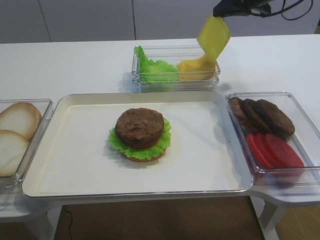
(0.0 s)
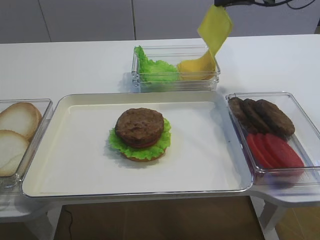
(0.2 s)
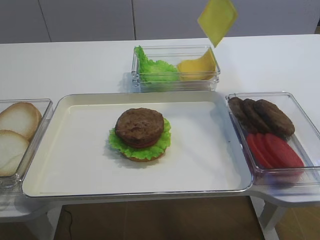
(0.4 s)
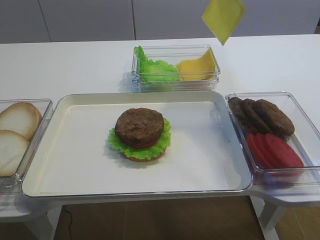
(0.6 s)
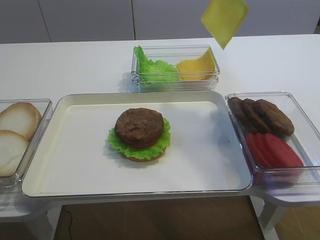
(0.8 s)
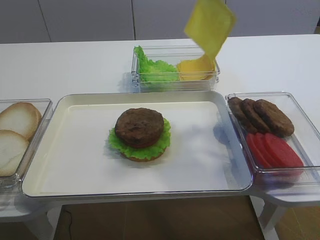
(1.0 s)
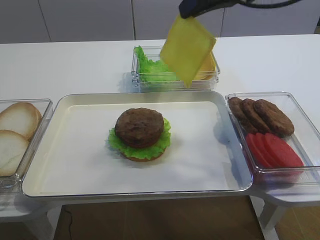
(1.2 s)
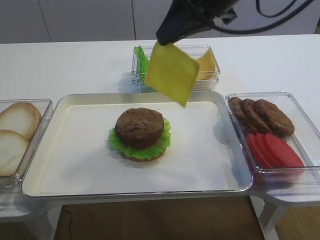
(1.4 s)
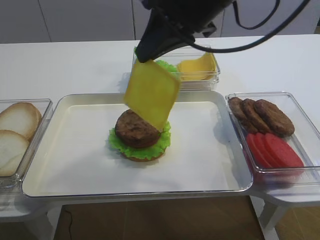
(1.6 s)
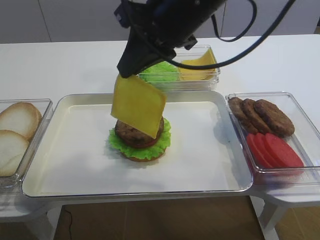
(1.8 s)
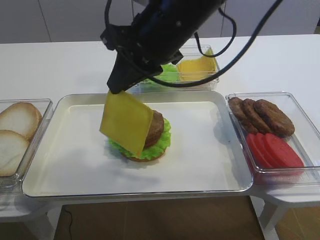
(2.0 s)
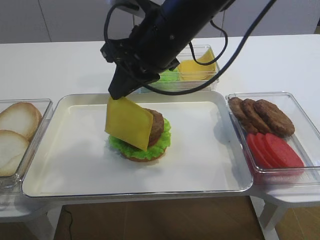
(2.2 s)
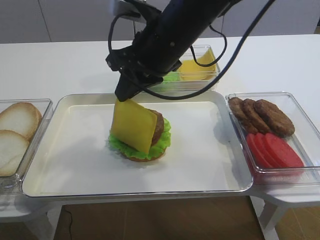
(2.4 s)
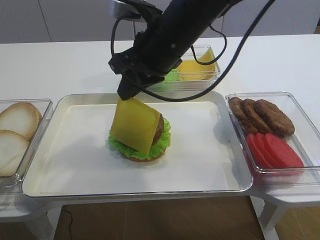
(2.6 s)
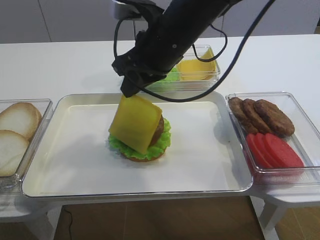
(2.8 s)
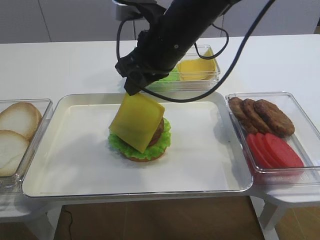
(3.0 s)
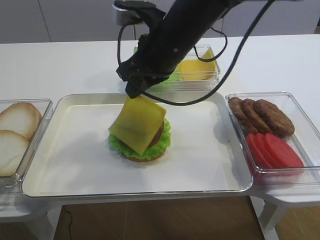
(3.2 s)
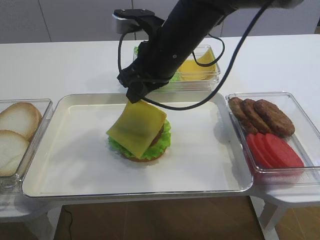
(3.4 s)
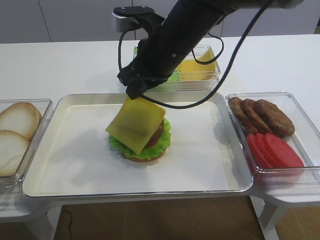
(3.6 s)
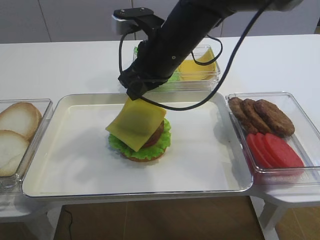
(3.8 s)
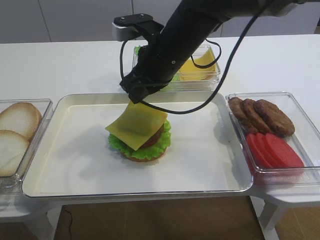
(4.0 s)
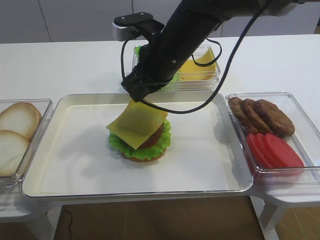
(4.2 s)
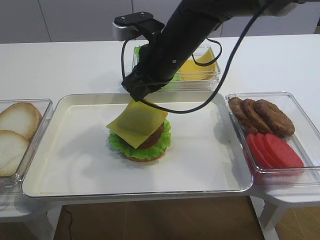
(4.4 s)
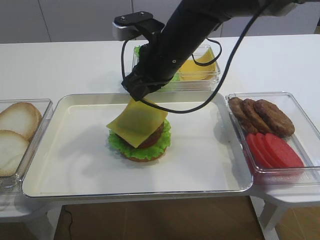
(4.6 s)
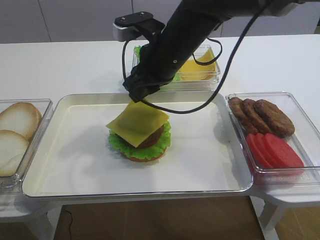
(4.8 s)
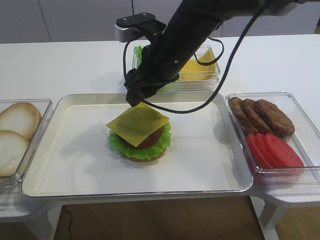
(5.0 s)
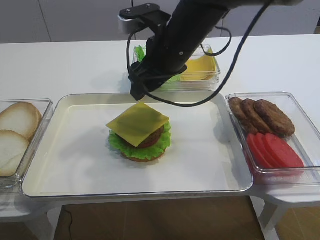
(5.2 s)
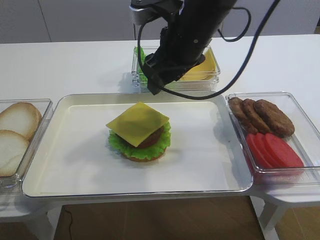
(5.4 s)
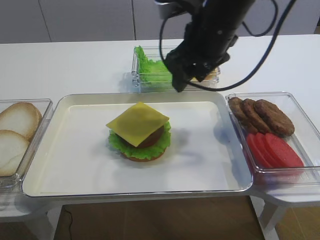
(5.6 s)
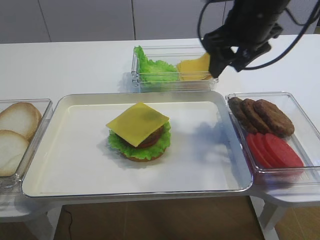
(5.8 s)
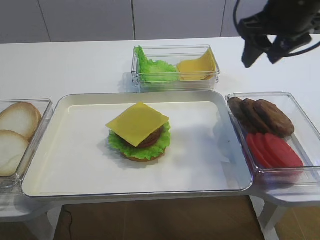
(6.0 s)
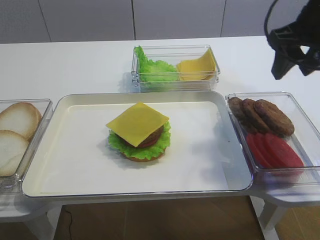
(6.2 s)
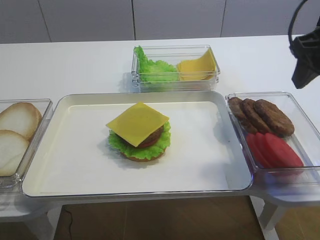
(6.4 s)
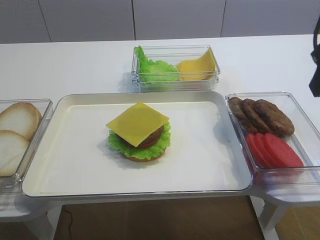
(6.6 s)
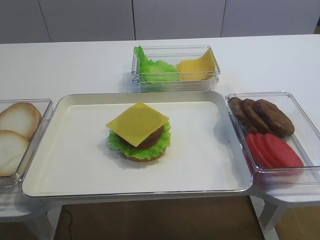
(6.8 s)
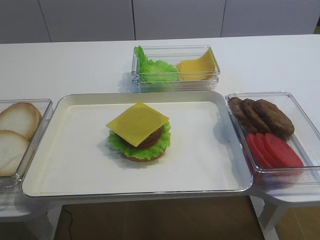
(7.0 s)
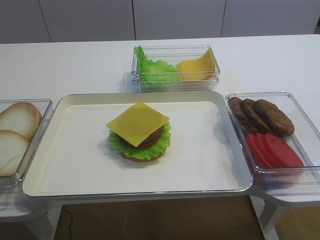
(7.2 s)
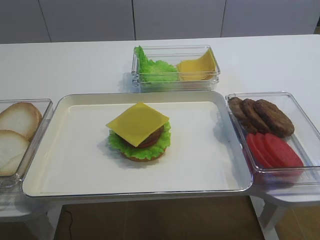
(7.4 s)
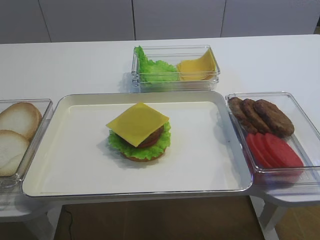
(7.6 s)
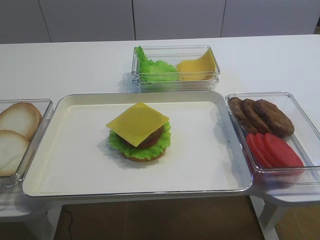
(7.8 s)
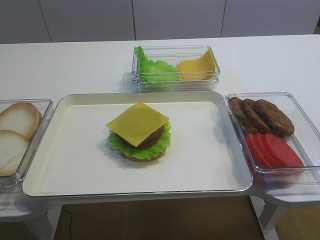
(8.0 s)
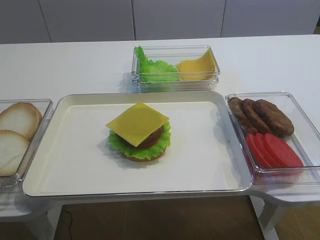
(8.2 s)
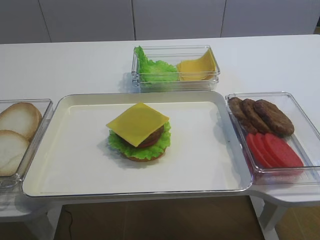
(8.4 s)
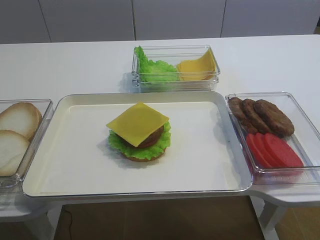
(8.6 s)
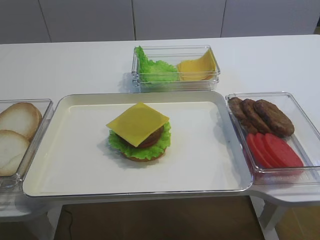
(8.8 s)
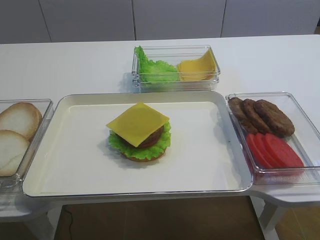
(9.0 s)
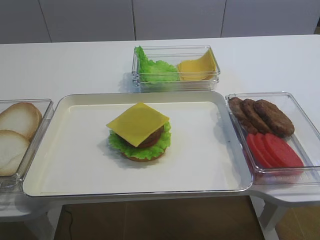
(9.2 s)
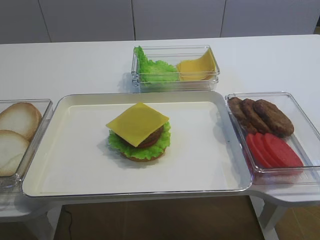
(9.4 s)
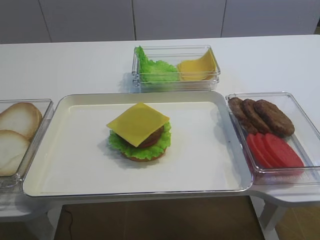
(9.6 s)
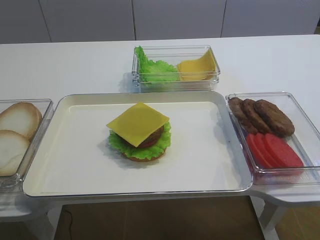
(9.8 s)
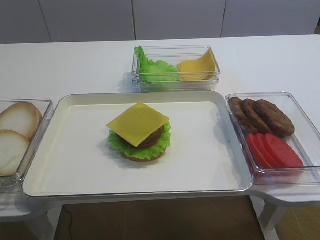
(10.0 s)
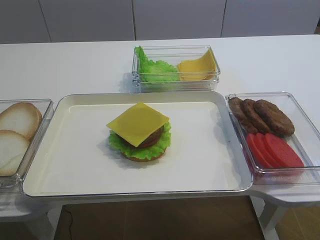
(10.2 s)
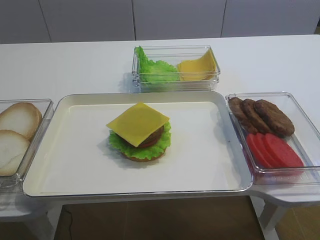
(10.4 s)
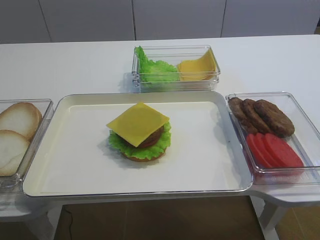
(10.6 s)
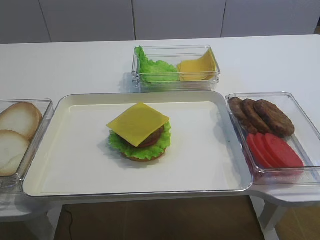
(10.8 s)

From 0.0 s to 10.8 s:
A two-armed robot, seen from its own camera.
Step, from 0.4 s to 5.2 s: Place the cheese slice on the cutlet with the right gripper.
From 0.0 s to 1.6 s: The right gripper heads backward and to the left, covering roughly 25 cm.
From 1.6 s to 3.0 s: The right gripper is displaced downward by approximately 5 cm.
From 3.0 s to 4.6 s: The grippers stay close to where they were, moving slightly.
From 4.6 s to 6.2 s: The right gripper moves to the right, about 20 cm, and opens up.
From 6.2 s to 7.8 s: The right gripper is displaced backward by some 30 cm.
From 7.8 s to 9.2 s: The right gripper is displaced downward by some 5 cm.

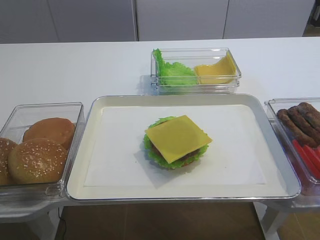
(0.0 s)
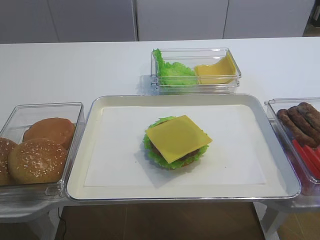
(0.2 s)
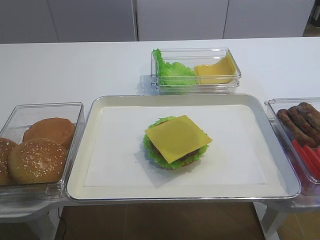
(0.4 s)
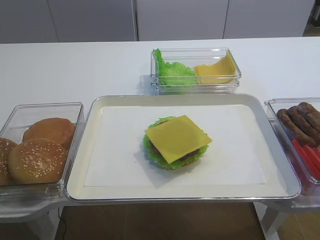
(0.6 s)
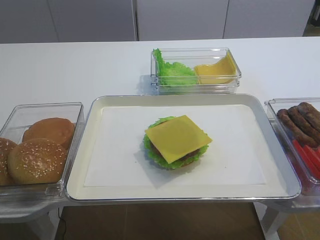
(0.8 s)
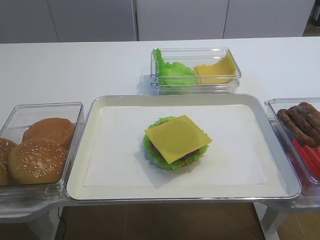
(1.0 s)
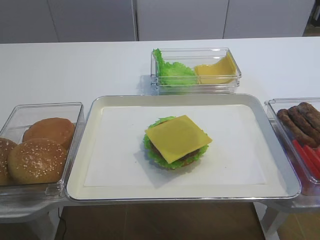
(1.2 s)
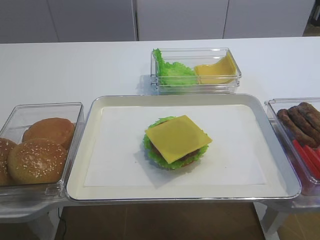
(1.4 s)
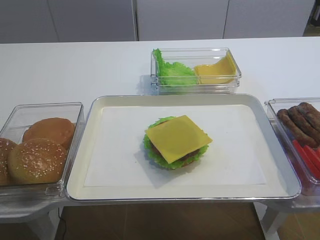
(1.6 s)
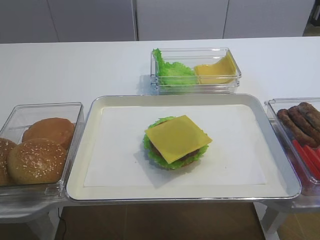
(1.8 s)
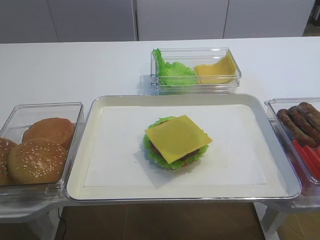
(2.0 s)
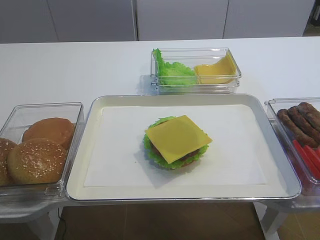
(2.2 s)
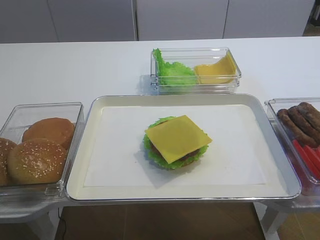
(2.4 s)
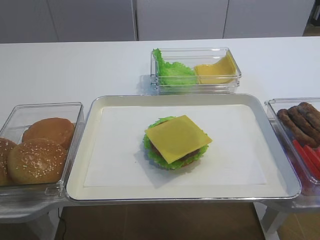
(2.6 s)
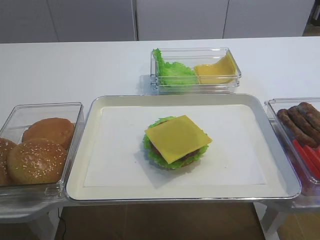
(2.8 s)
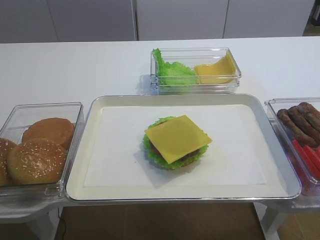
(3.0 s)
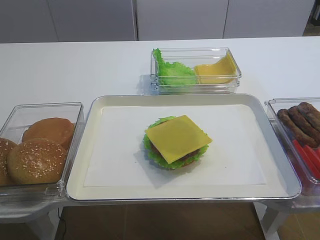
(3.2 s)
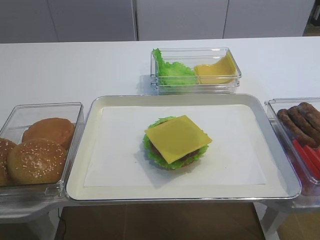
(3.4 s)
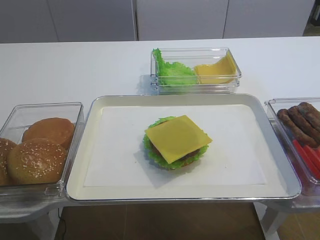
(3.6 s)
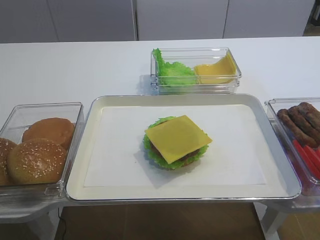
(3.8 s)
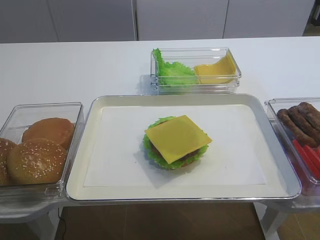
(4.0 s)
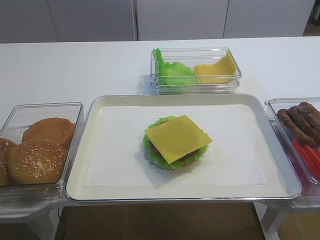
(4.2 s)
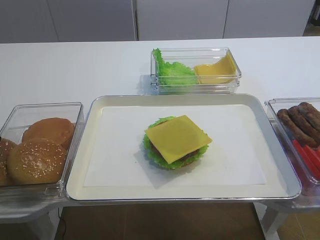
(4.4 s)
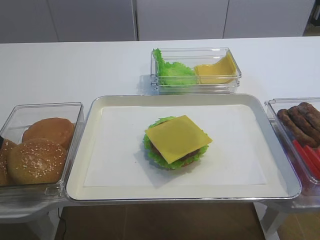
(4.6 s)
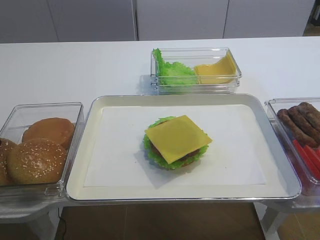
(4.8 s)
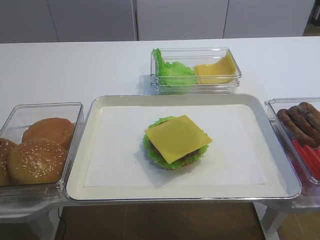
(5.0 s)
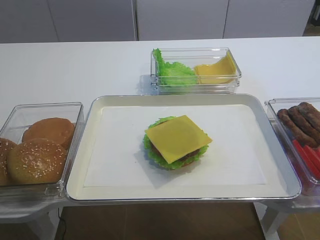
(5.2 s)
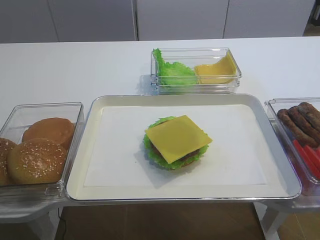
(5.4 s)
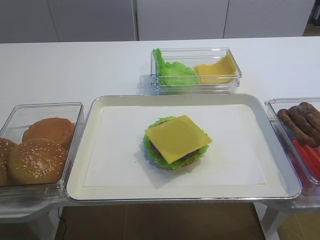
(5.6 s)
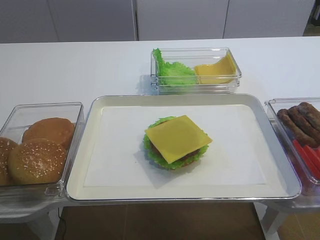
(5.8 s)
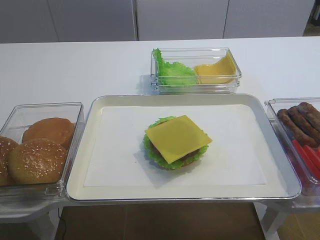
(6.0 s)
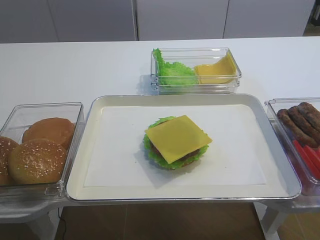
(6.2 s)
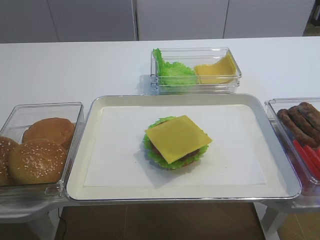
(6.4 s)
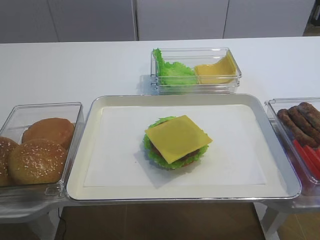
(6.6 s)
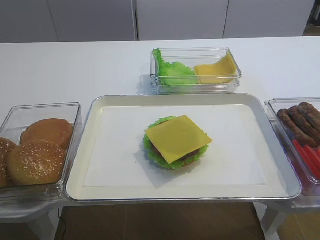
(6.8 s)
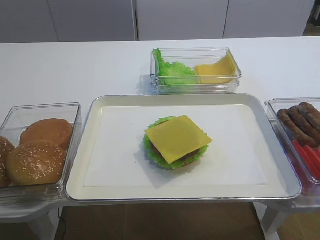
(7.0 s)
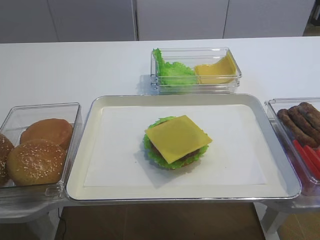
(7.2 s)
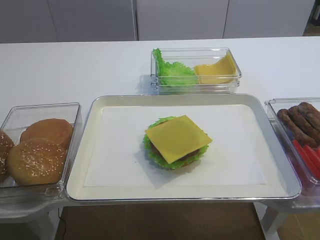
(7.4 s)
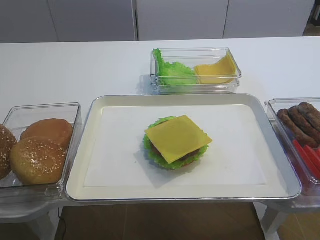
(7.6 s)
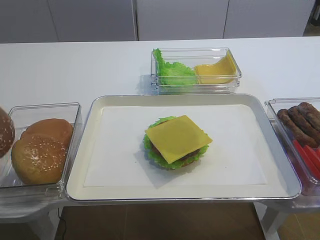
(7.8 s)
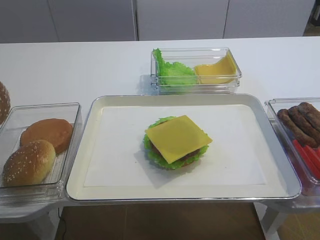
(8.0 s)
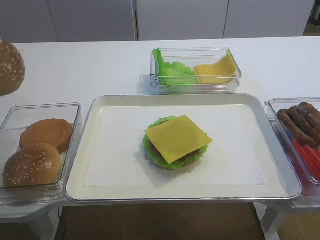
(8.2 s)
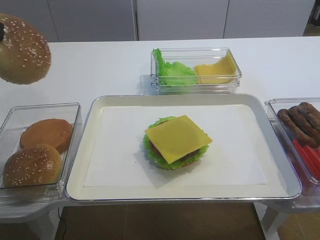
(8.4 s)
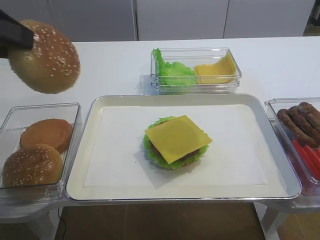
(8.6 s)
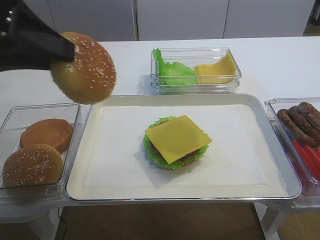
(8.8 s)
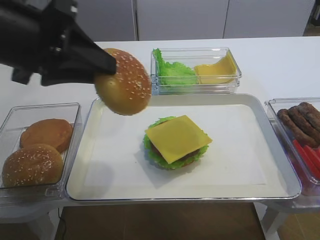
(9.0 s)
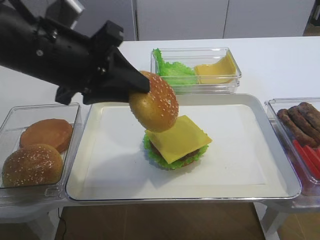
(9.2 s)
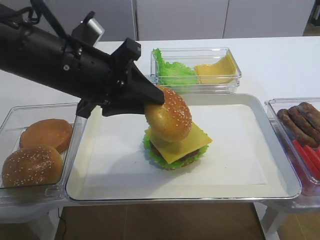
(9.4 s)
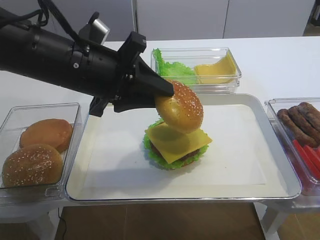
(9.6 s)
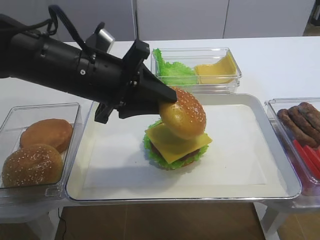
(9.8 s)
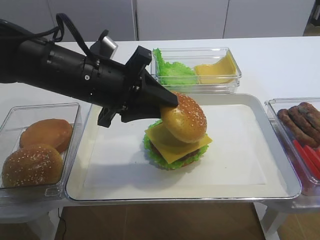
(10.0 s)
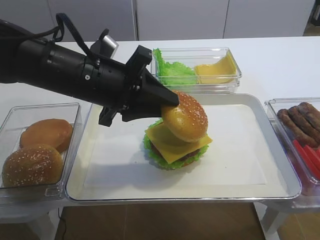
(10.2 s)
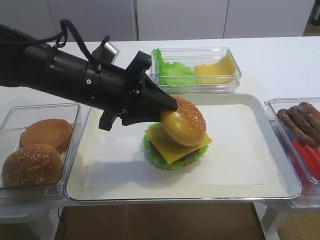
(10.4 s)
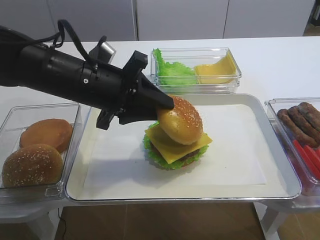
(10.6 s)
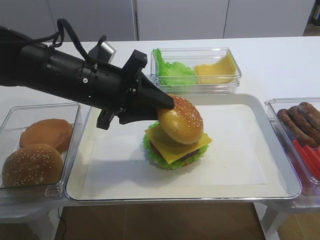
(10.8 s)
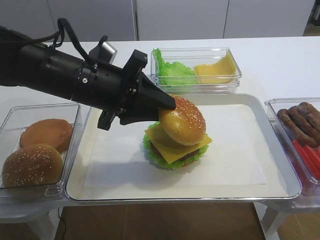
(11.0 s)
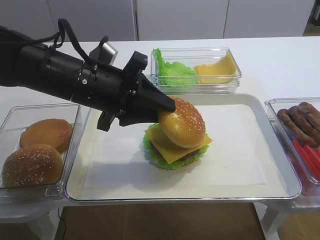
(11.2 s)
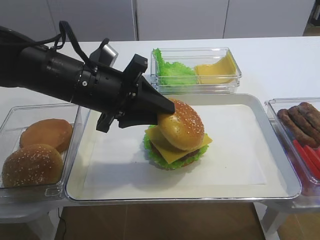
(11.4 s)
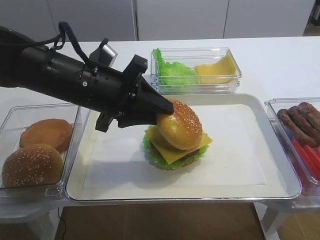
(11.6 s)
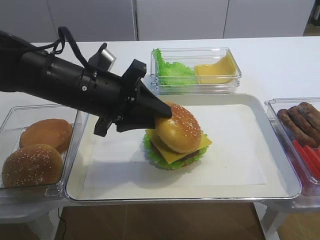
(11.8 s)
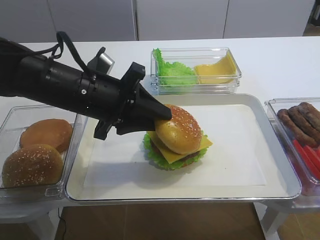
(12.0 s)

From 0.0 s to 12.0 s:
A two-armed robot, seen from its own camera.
Step, from 0.0 s to 8.2 s: Pick up the hamburger lid with the left gripper.
From 6.0 s to 7.6 s: The grippers move only a little.
From 7.6 s to 9.0 s: The left gripper travels to the right by approximately 15 cm.
From 9.0 s to 10.4 s: The left gripper goes approximately 10 cm downward, to the right and forward.
From 10.4 s to 12.0 s: The grippers make only small movements.
